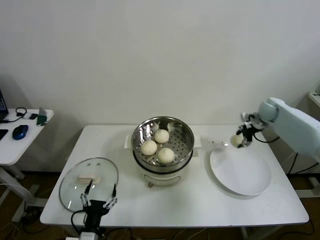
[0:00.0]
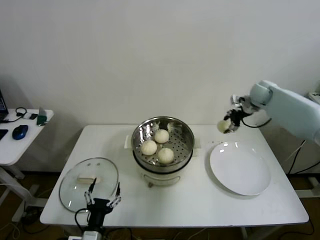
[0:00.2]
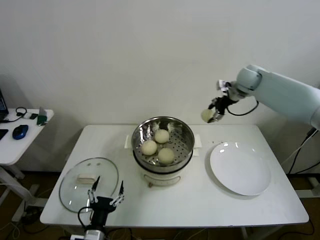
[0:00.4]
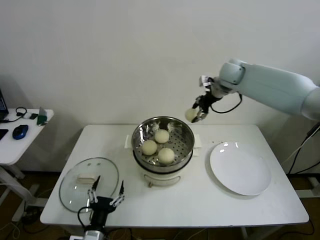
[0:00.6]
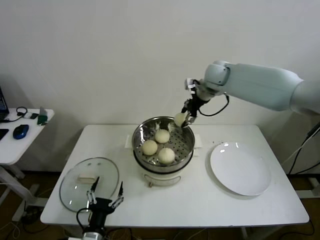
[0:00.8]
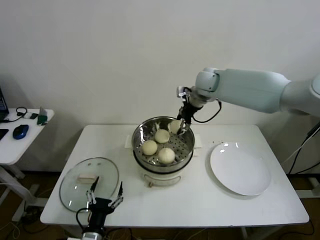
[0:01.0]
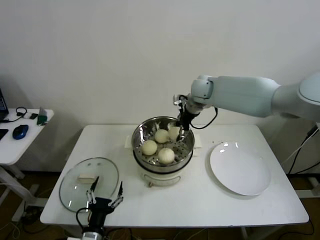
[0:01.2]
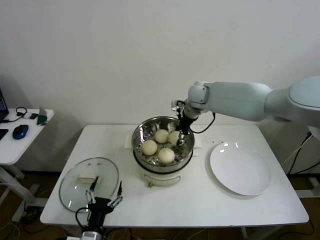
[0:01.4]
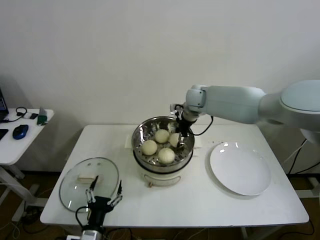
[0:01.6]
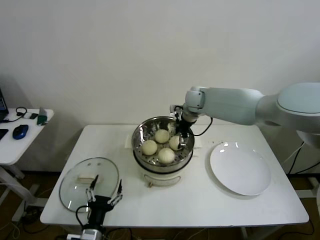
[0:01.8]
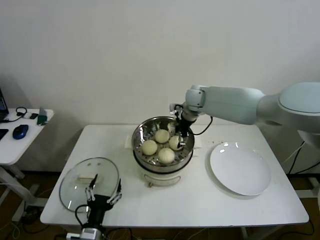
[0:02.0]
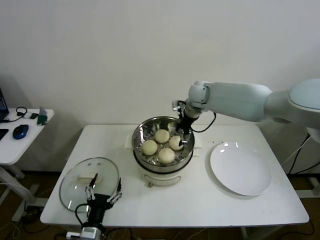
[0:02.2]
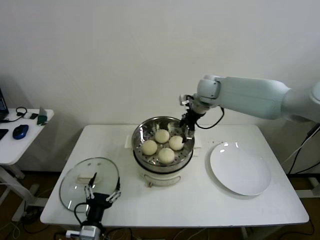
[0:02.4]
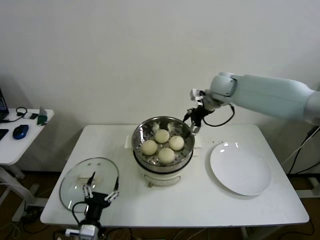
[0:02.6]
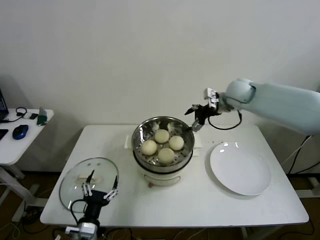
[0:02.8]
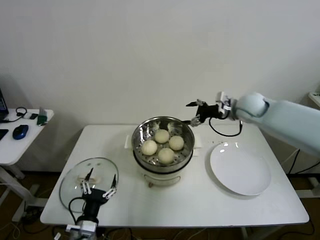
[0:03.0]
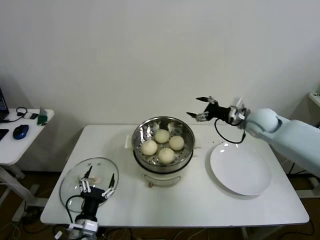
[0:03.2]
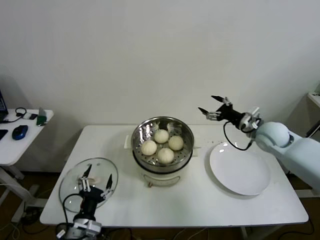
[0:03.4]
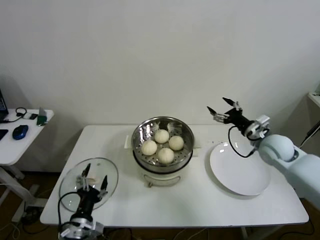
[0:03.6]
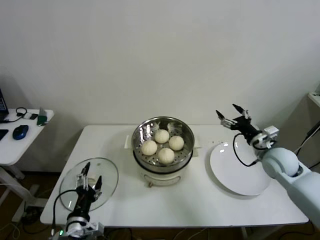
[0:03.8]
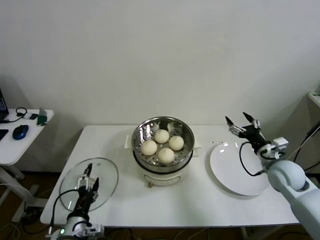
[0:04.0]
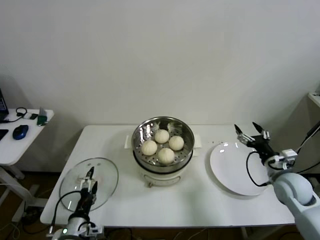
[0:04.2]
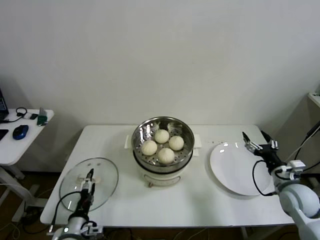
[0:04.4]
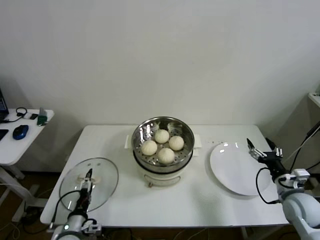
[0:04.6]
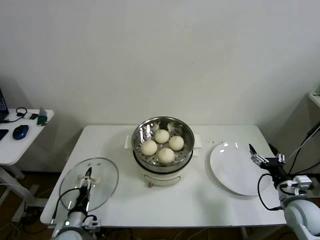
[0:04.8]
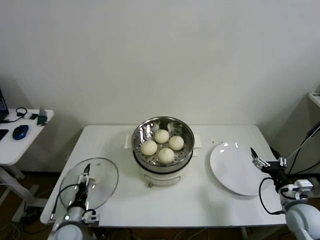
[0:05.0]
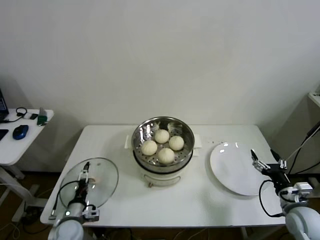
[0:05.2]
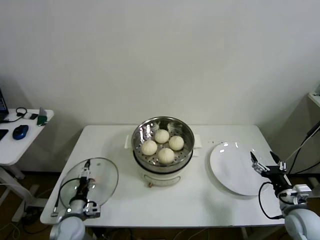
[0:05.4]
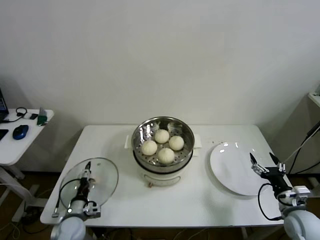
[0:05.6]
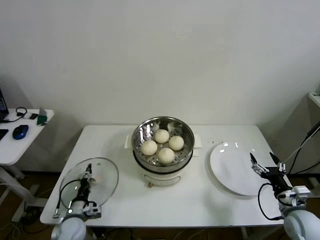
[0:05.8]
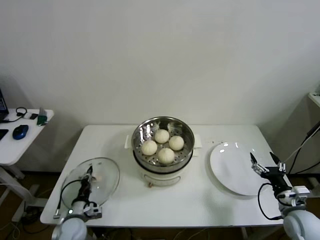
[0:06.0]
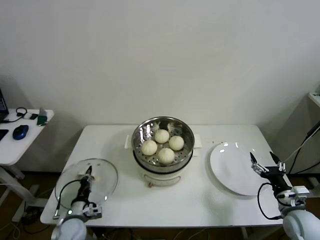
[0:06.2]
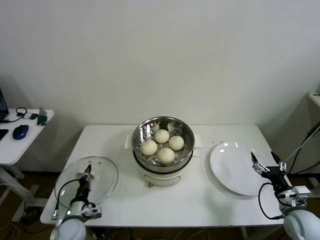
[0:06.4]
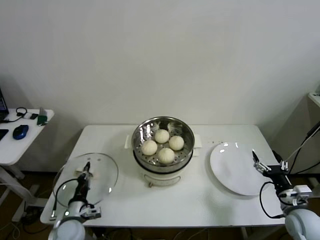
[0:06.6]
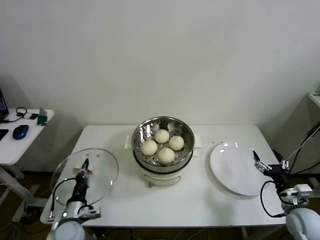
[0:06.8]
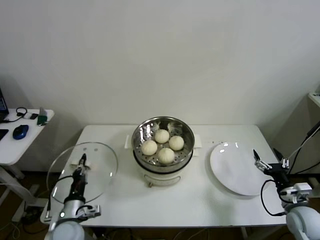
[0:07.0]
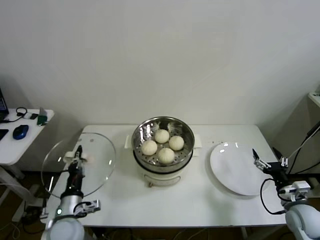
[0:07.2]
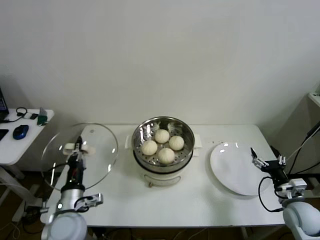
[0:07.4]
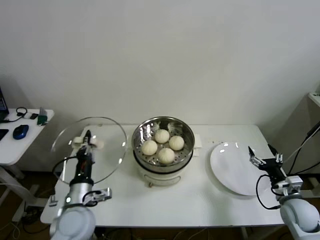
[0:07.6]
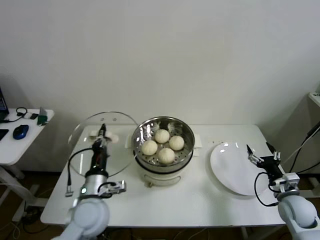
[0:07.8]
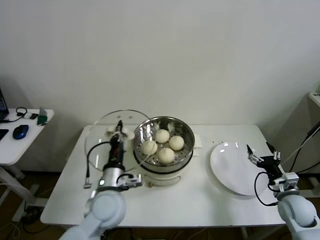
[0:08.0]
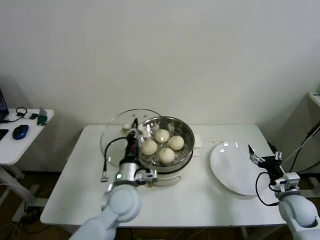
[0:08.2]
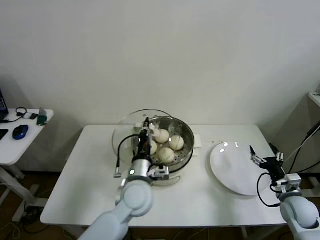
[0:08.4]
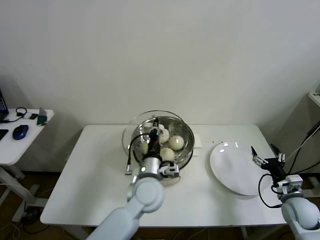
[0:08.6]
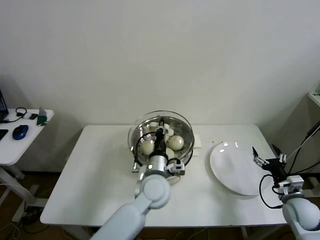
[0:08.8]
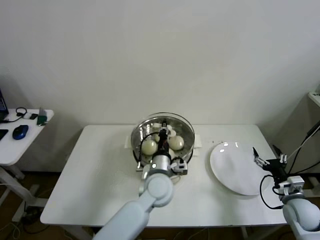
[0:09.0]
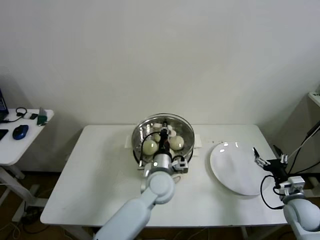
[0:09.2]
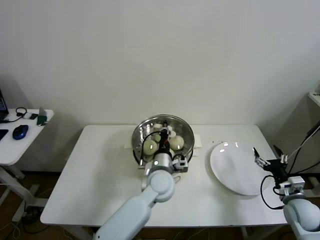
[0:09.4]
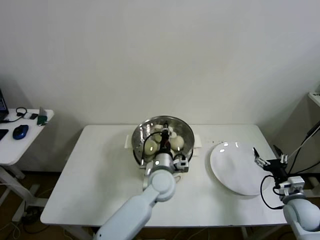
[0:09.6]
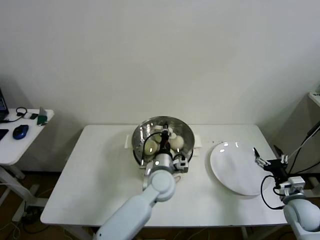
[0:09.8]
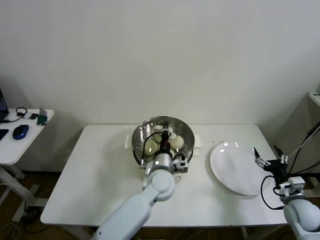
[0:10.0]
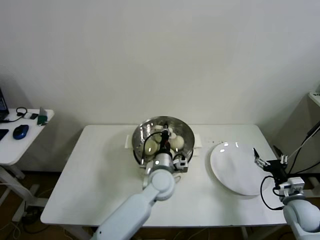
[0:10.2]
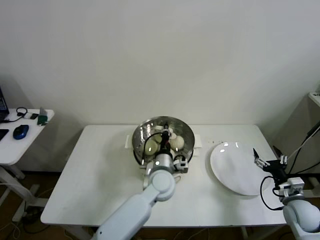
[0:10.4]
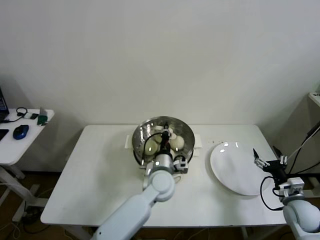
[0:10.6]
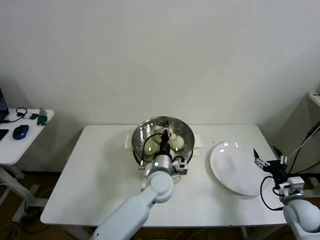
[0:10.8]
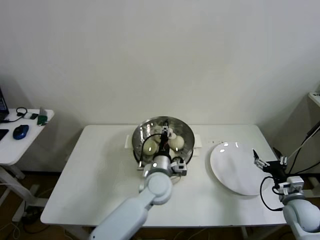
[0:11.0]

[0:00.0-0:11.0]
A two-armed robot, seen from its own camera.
Step, 0:00.0 to 0:01.8: Place the baozi on the steamer with right gripper.
Step, 0:02.0 to 0:06.0: Grasp the pot lid with left gripper.
Step, 0:06.2 to 0:10.8: Place the pot lid on the steamer with left gripper.
0:00.0 to 0:01.6: The right gripper moves to the left, approximately 30 cm.
0:01.6 to 0:03.2: The right gripper travels to the right and backward by some 20 cm, and opens up.
0:03.2 to 0:04.8: The left gripper is displaced downward and to the left by roughly 10 cm. Meanwhile the right gripper travels backward, downward and to the right by roughly 30 cm.
0:04.8 to 0:06.2: The left gripper ends up some 5 cm from where it was, and closes.
0:06.2 to 0:07.8: The left gripper is displaced upward and to the right by some 20 cm.
0:07.8 to 0:09.4: The left gripper heads to the right and forward, covering roughly 20 cm.
0:09.4 to 0:11.0: The left gripper opens its fingers.

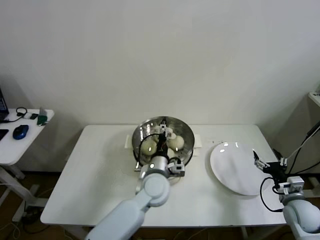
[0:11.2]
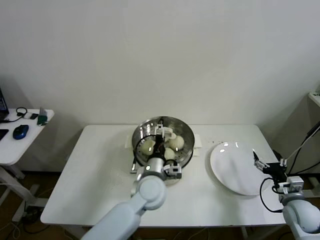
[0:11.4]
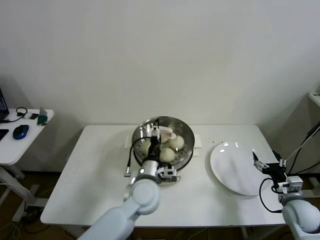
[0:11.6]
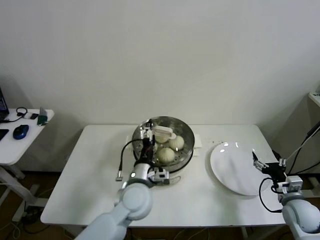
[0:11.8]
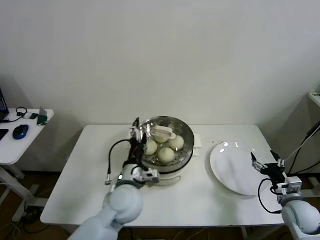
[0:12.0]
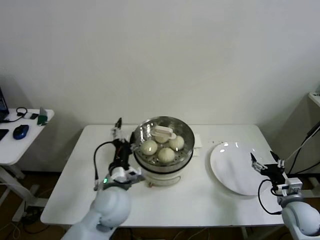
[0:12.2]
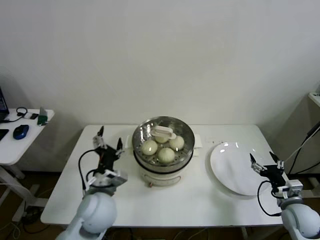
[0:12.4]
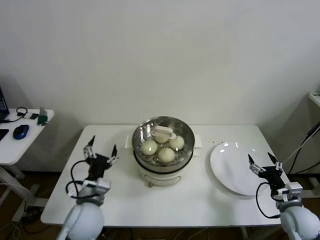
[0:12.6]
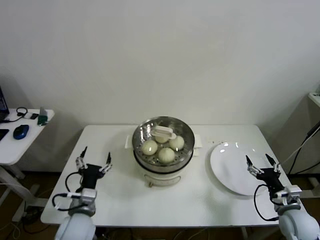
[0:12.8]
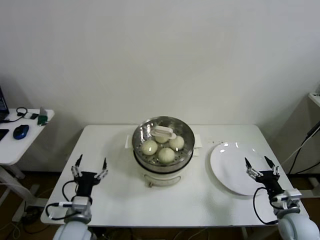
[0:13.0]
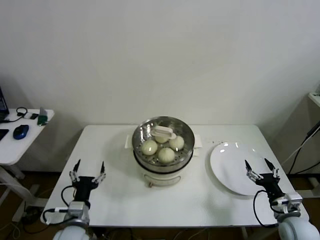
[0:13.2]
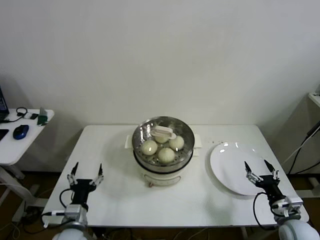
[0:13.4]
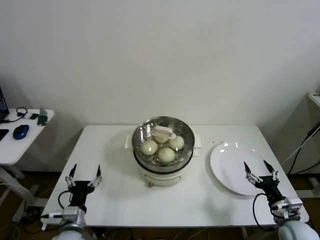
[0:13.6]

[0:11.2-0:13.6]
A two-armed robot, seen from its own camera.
0:11.2 to 0:12.4: The left gripper moves to the left and backward, about 15 cm.
0:12.4 to 0:13.6: The right gripper shifts by approximately 5 cm. The left gripper travels to the left, downward and backward by about 20 cm.
